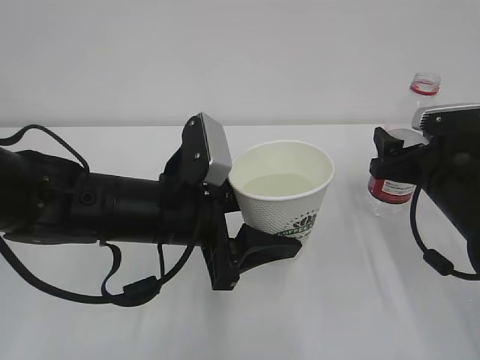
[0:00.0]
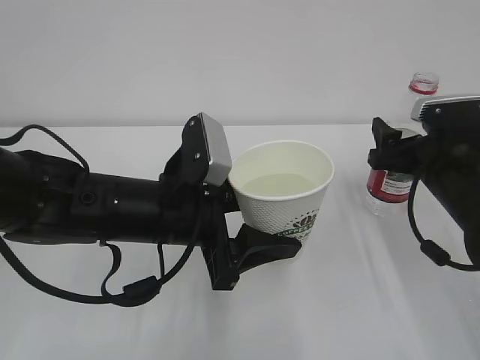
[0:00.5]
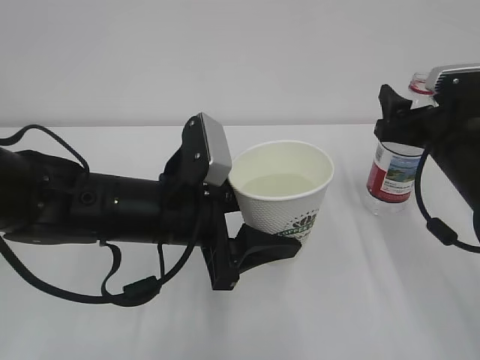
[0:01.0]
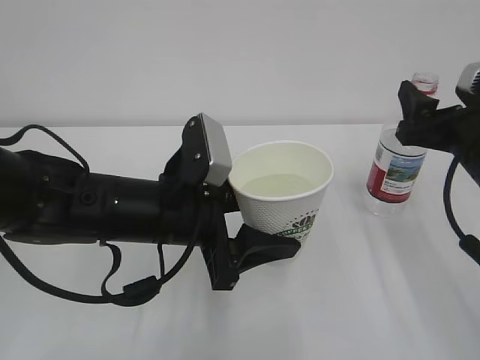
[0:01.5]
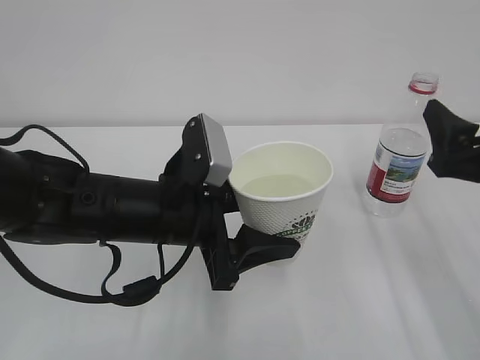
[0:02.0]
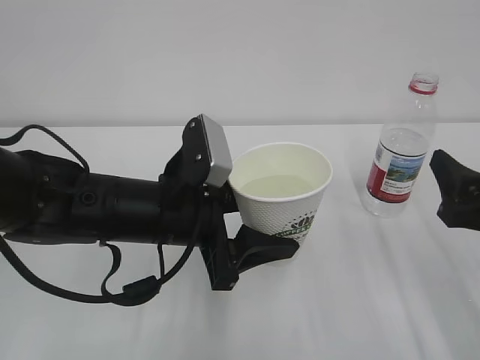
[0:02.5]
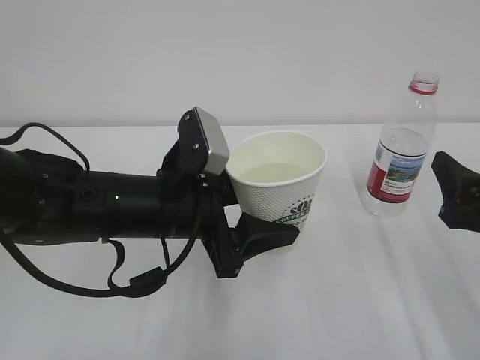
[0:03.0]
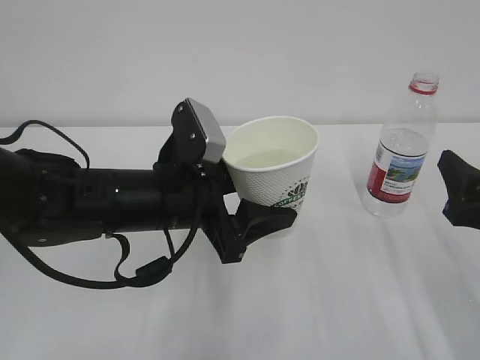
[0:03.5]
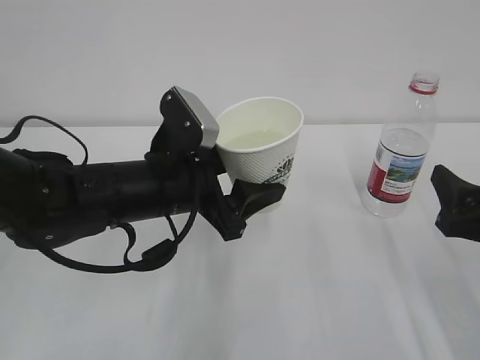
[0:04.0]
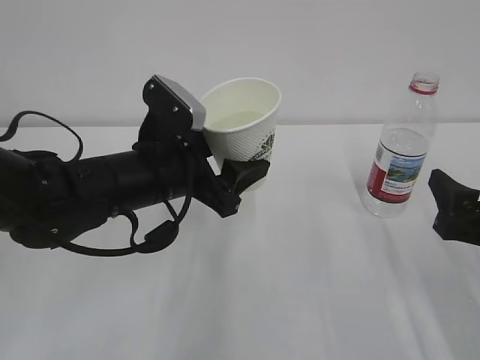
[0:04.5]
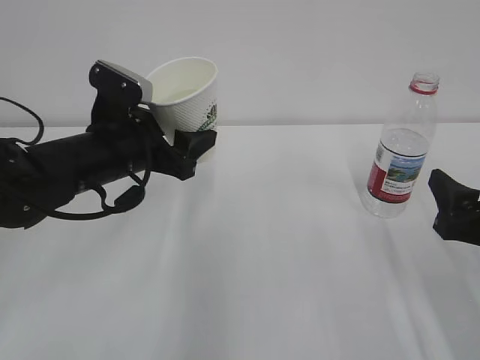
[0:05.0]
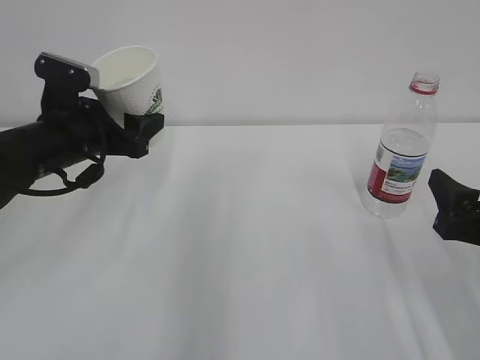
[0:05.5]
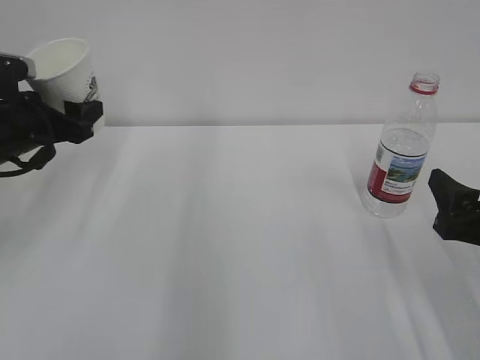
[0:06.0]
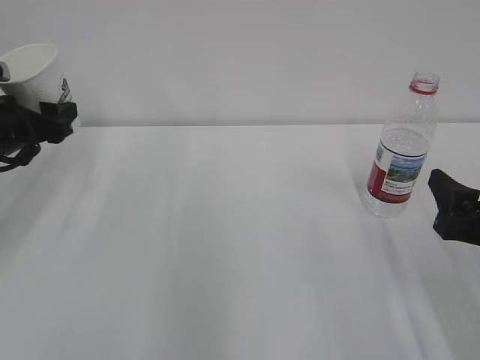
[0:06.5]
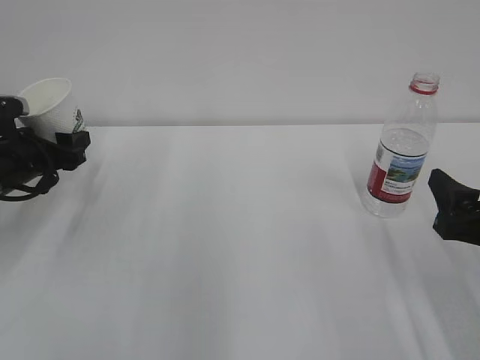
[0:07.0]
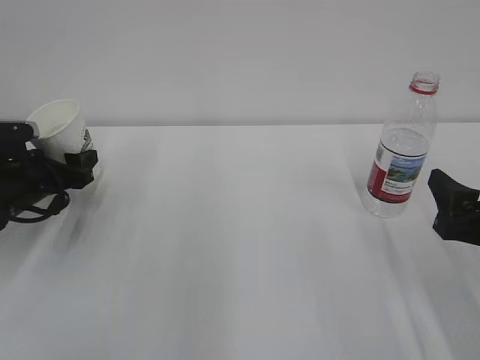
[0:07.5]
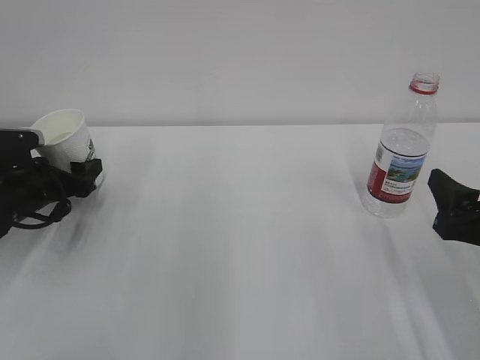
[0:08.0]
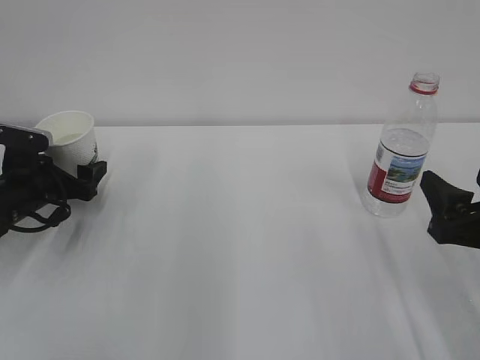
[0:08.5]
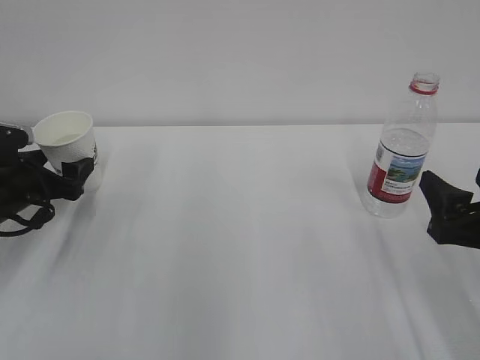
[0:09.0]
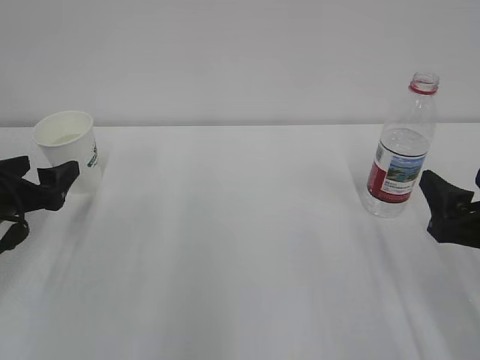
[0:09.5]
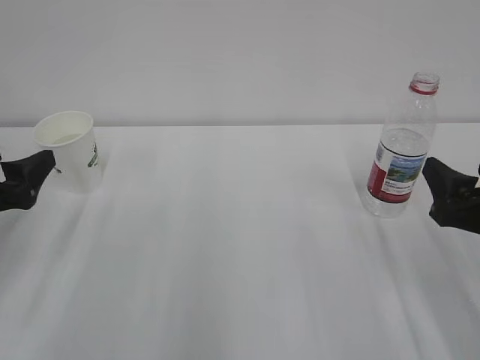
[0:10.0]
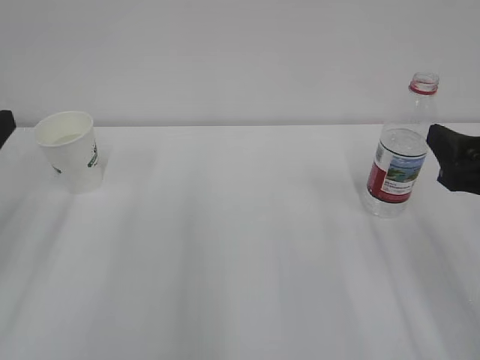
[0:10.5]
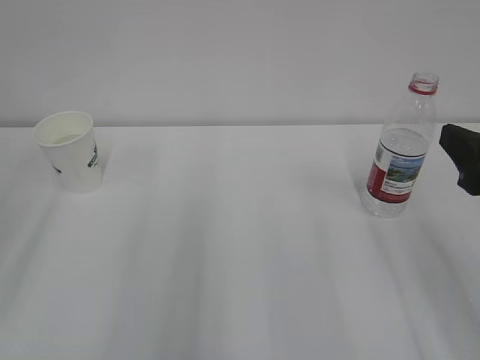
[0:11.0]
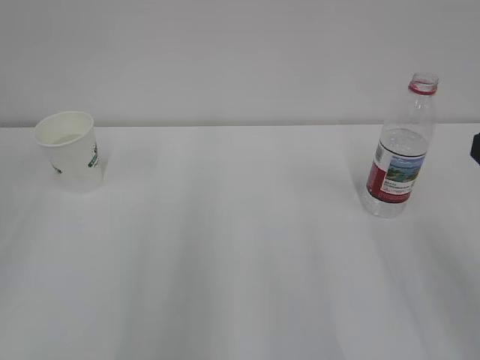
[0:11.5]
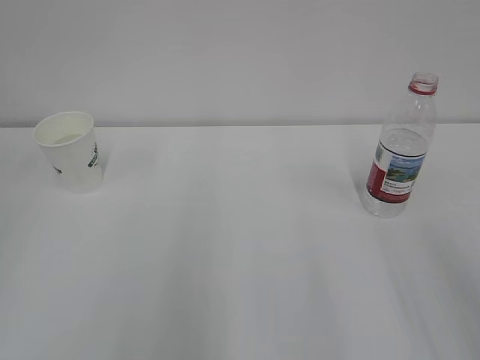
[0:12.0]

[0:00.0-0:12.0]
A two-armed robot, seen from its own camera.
0:00.0 to 0:02.0: The right gripper heads backward and upward, covering approximately 10 cm.
0:02.0 to 0:04.0: The grippers make only small movements.
0:04.0 to 0:06.0: The left gripper goes roughly 20 cm to the left and forward.
0:06.0 to 0:08.0: The left gripper goes approximately 10 cm downward, and opens its fingers.
0:08.0 to 0:10.0: The left gripper shifts some 15 cm backward and upward.
0:10.0 to 0:12.0: The right gripper is displaced backward and upward by some 15 cm, while the left gripper goes roughly 25 cm backward and upward, and closes.

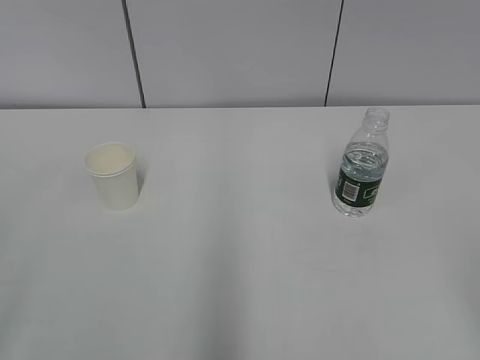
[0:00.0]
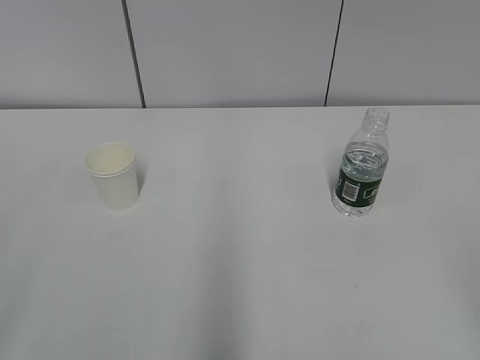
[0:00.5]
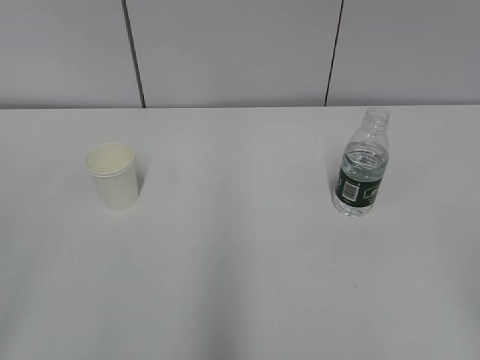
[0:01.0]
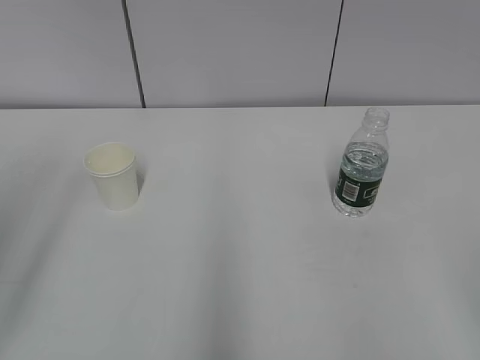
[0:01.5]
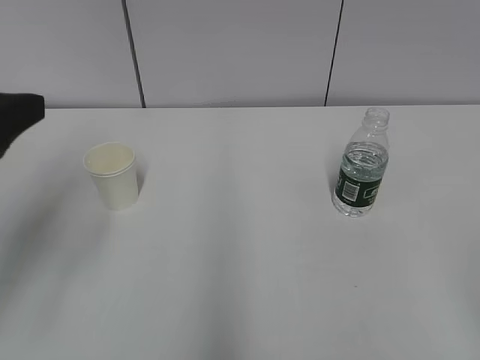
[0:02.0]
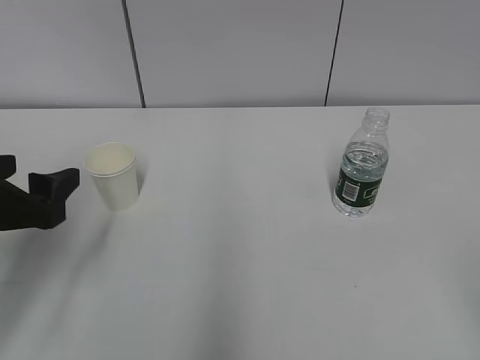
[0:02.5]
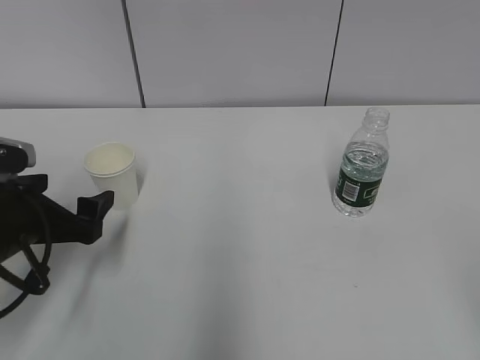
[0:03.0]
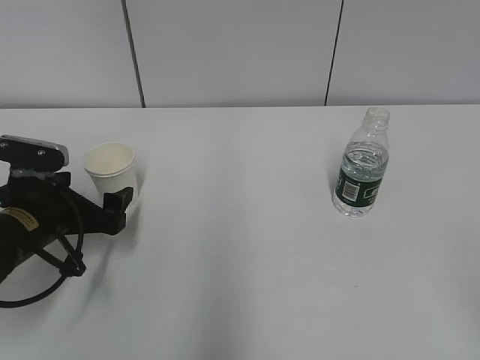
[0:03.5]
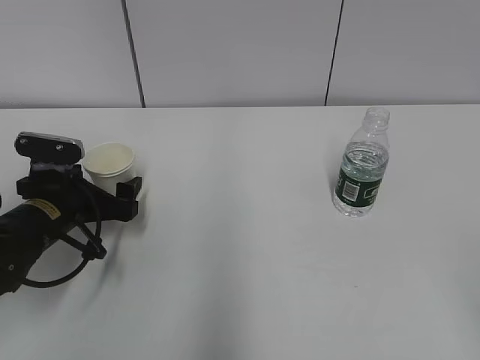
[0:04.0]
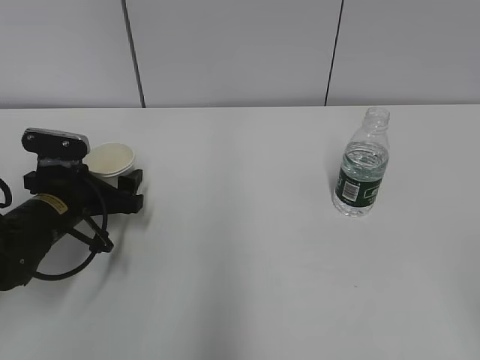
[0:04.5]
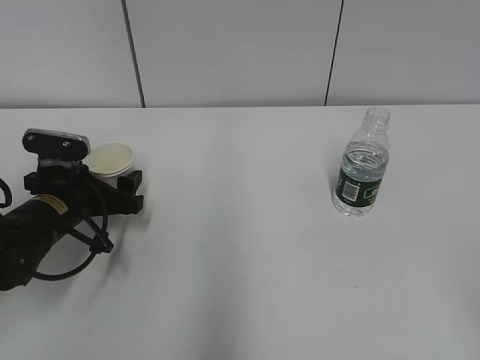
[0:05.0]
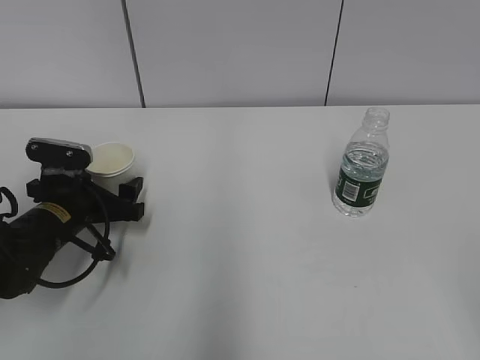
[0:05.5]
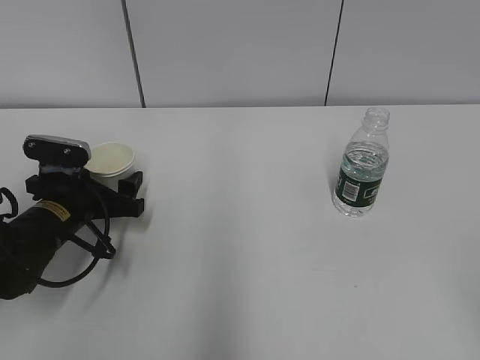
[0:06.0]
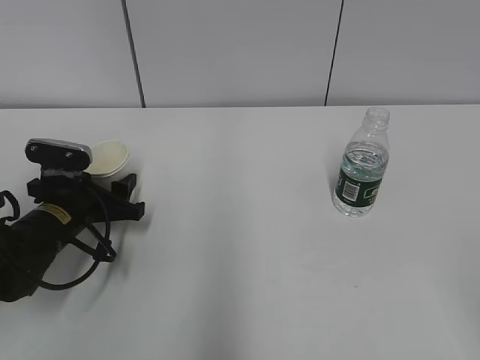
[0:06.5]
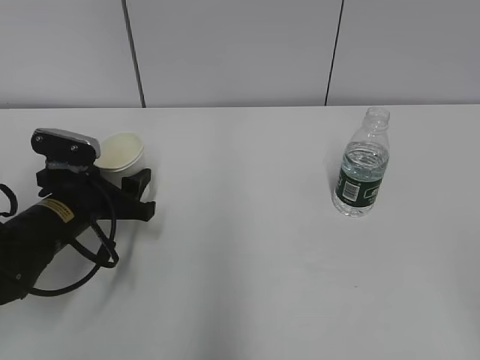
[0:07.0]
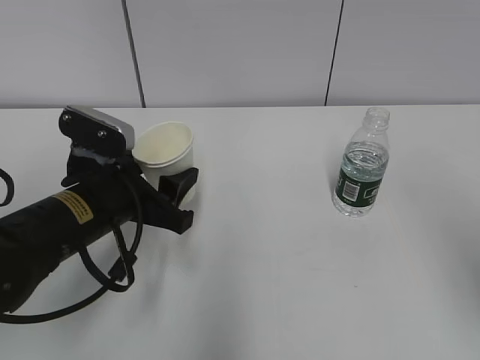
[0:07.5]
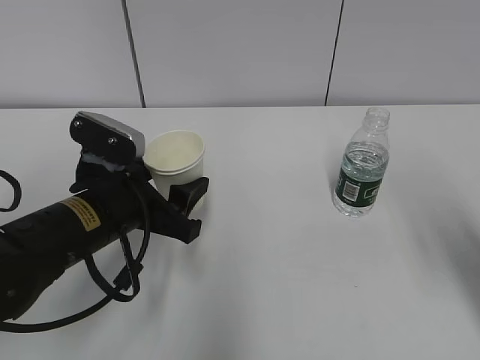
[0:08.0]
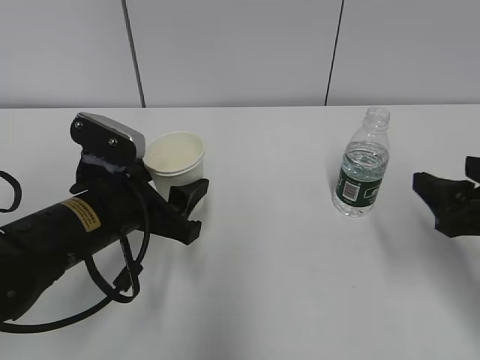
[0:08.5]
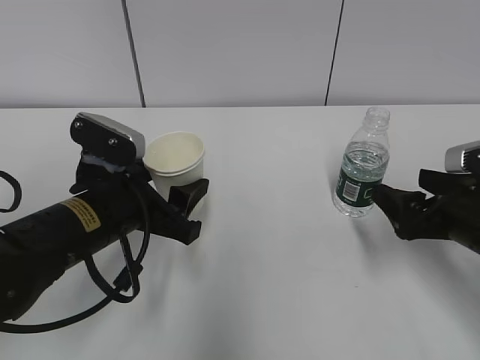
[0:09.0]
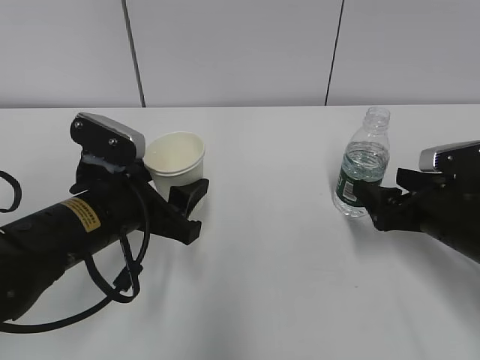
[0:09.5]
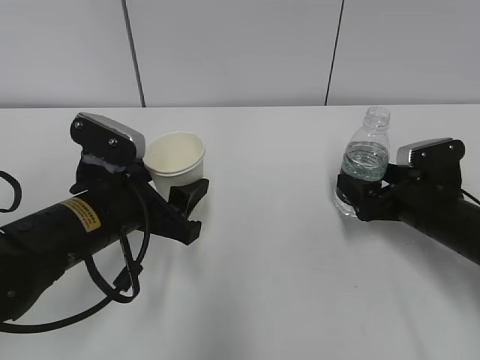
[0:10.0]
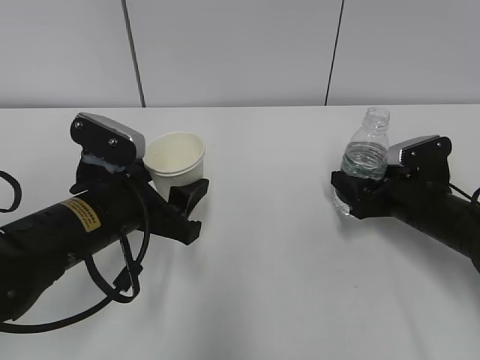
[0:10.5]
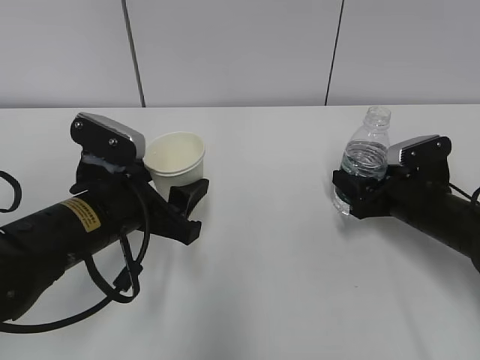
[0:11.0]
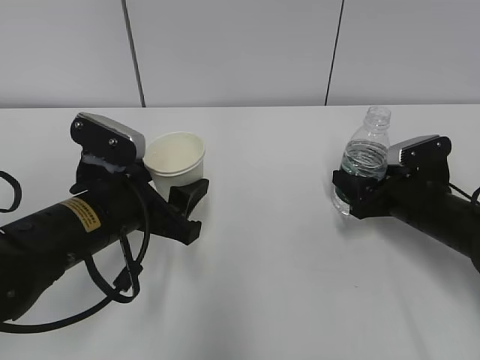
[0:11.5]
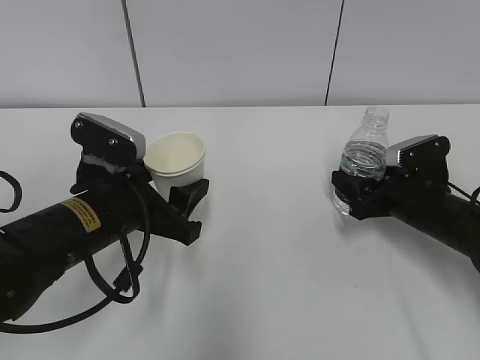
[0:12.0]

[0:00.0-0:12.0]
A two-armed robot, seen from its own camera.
Step, 0:00.0 to 0:05.0: Grab the paper cup with the left hand.
Step, 0:05.5 to 0:08.5: Grab the water bottle with the right hand.
0:02.0 to 0:04.0: The left gripper goes roughly 25 cm downward and forward.
0:04.0 to 0:06.0: The grippers make only small movements.
0:06.0 to 0:08.0: The right gripper heads forward, covering approximately 20 cm, while the left gripper heads to the right, backward and upward, covering about 15 cm, and closes up.
0:08.0 to 0:10.0: The right gripper shifts approximately 25 cm downward and forward, and opens its fingers.
0:10.0 to 0:12.0: The right gripper closes up.

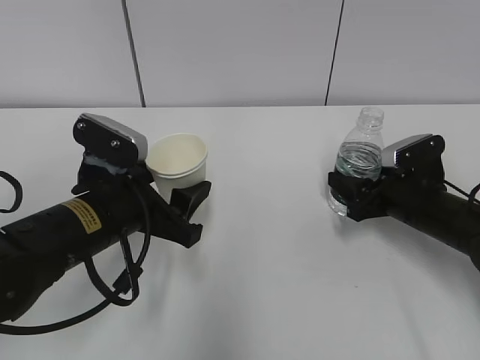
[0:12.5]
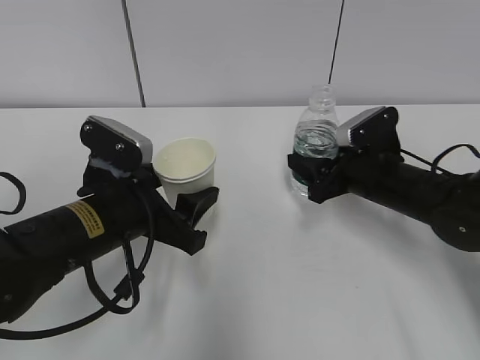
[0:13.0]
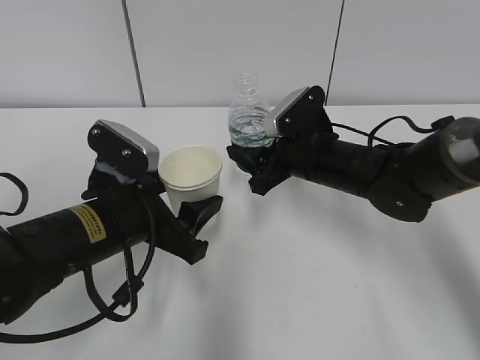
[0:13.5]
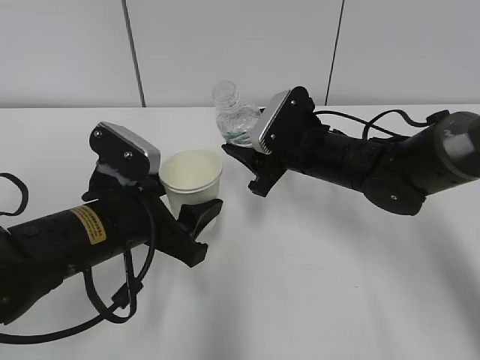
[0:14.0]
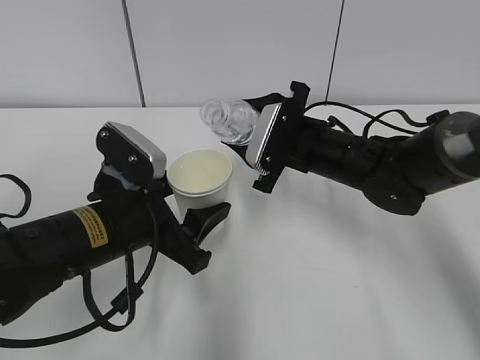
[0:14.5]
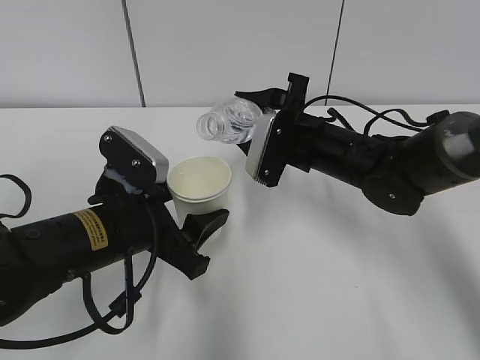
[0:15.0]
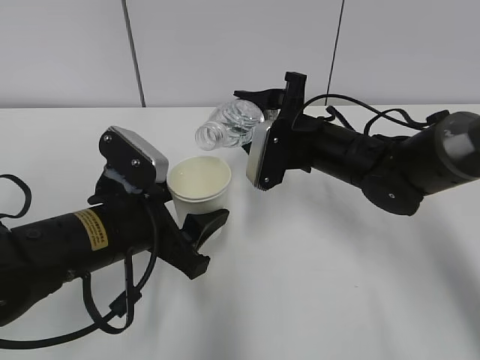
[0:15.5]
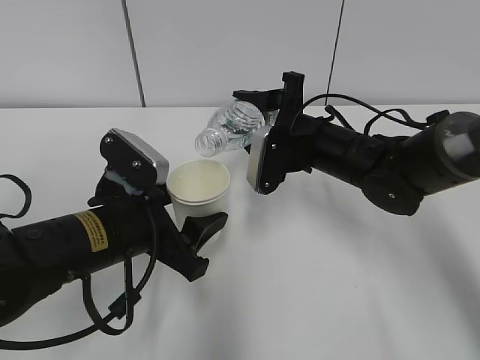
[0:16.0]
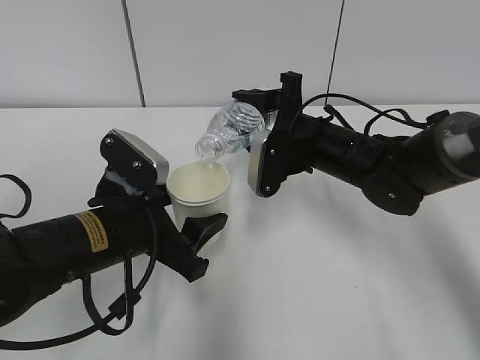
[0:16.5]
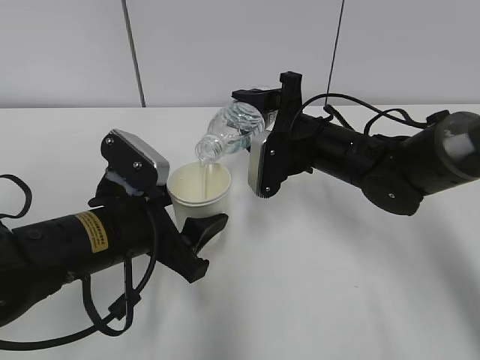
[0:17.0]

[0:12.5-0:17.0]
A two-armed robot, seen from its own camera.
0:12.5 to 0:14.5: The right gripper goes about 15 cm to the left and upward.
